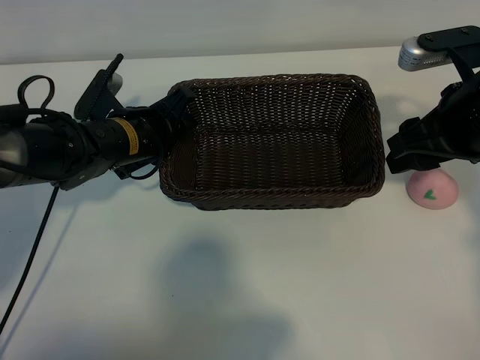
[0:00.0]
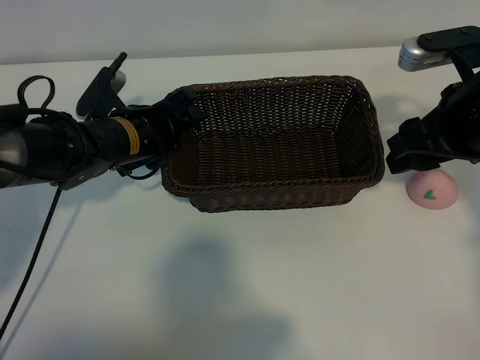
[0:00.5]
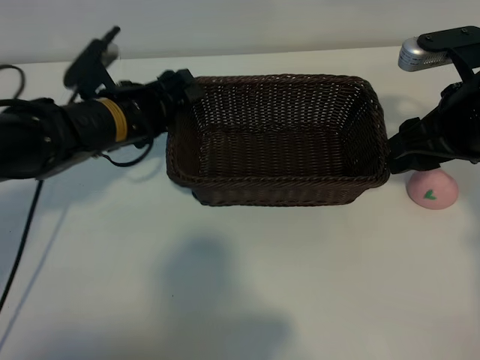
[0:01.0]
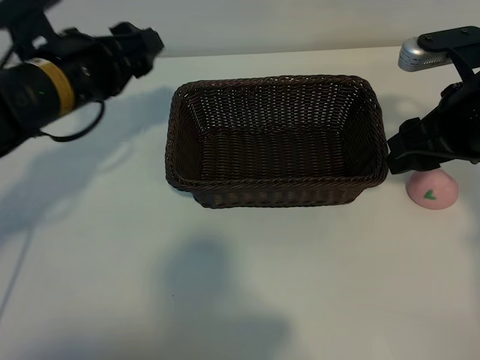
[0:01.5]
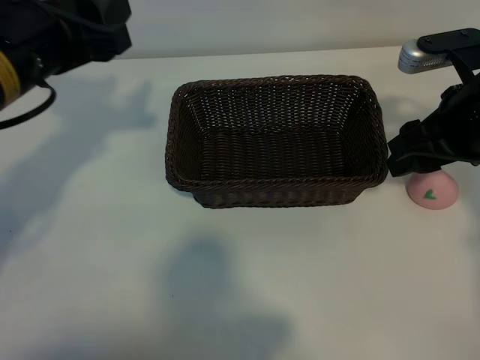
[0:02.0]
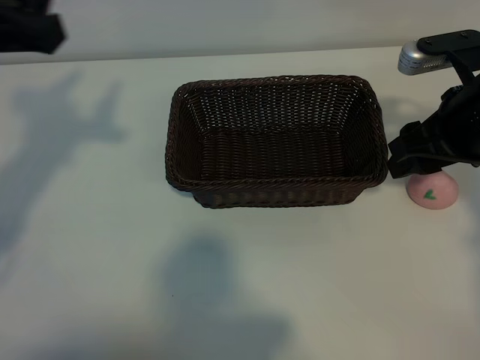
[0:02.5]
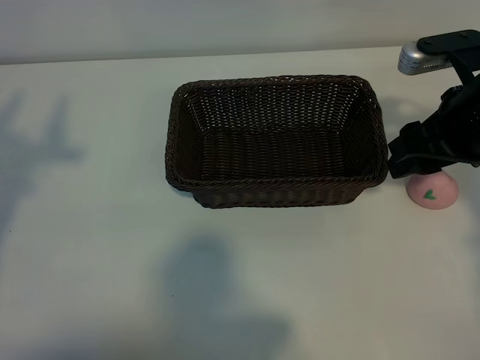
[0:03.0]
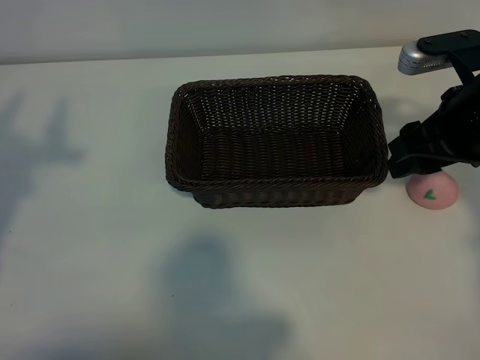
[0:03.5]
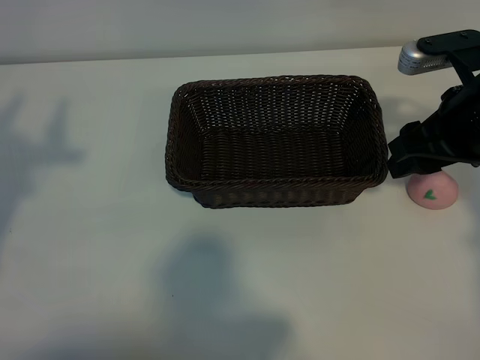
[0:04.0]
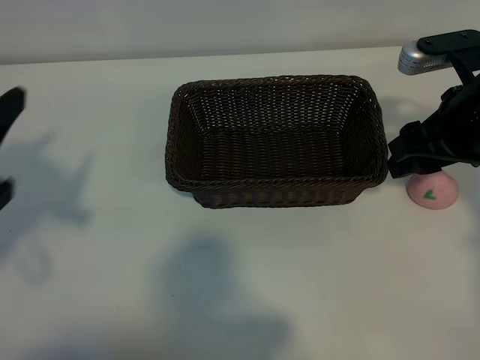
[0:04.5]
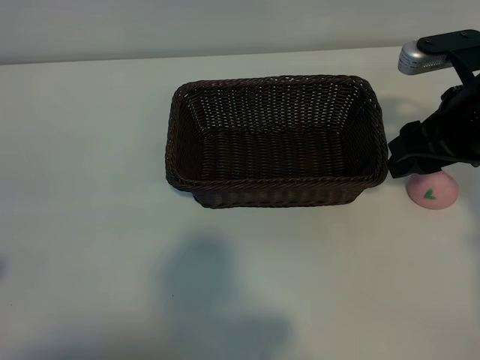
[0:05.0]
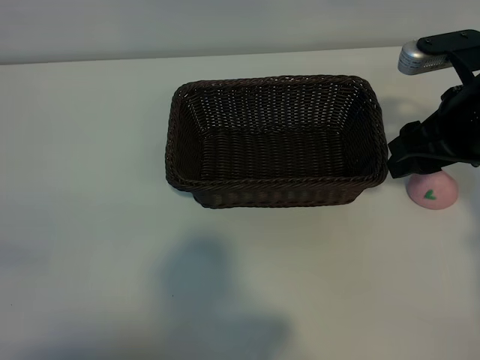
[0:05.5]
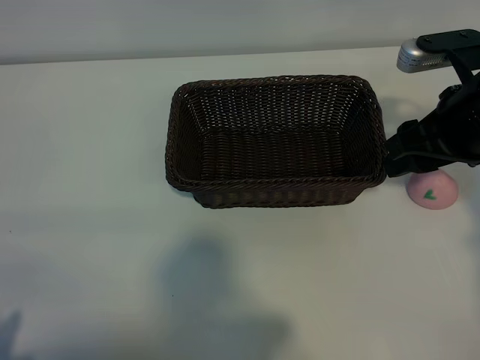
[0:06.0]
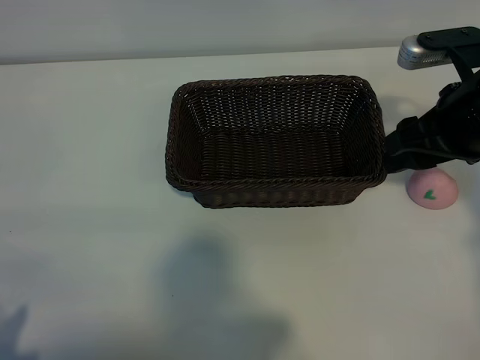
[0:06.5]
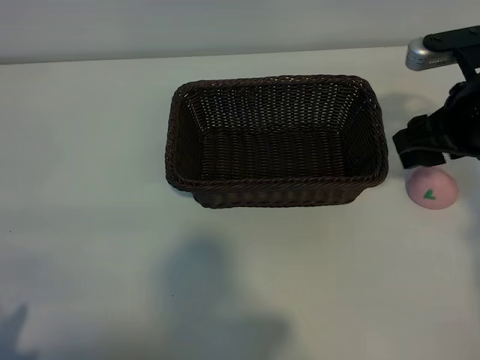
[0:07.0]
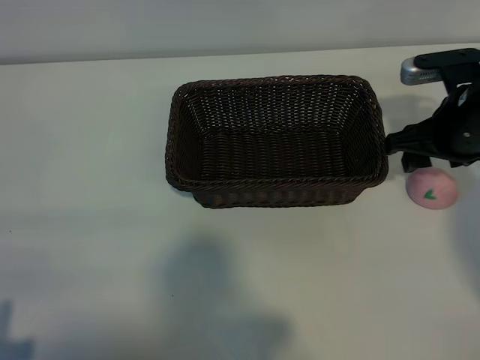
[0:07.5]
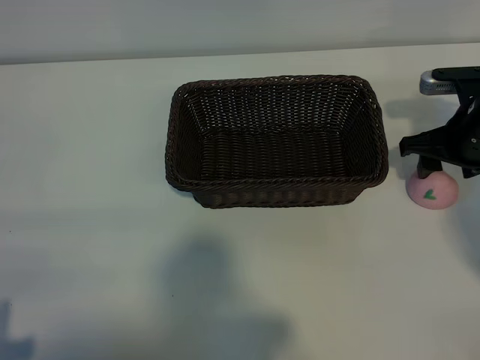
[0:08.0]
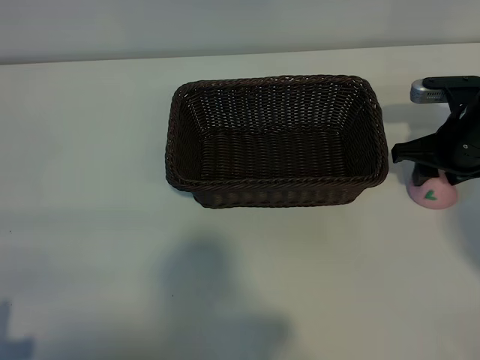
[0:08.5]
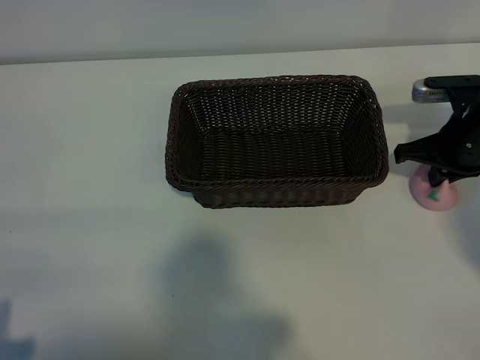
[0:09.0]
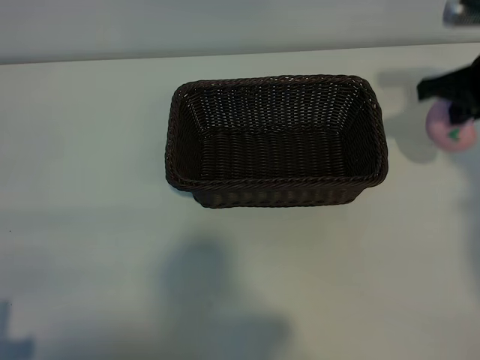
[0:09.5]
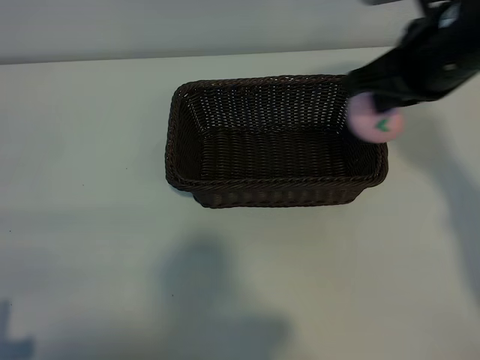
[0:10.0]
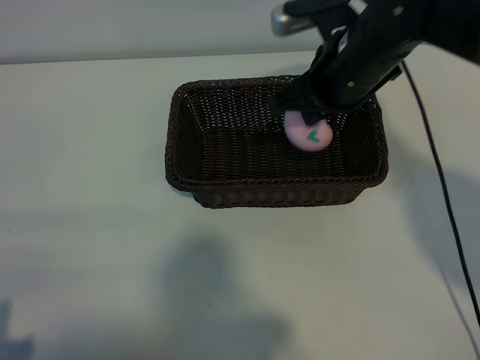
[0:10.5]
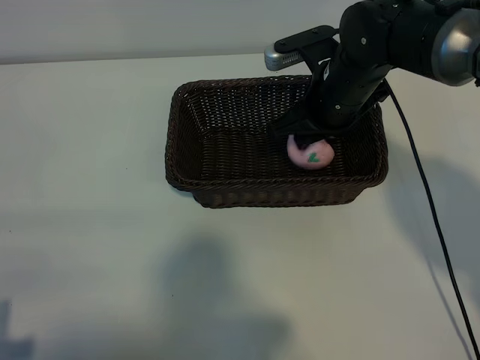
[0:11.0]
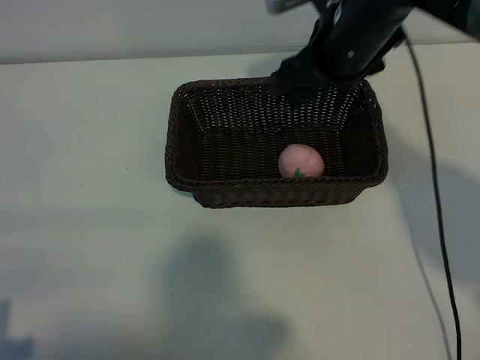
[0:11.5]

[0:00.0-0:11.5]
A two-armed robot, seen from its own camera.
Task of the whole recording: pick up the peach and put it into the basket.
Step, 0:01.5 to 0:09.0: Grasp the peach with right gripper.
Step, 0:09.5 to 0:11.0: Place the peach in the basket with right gripper.

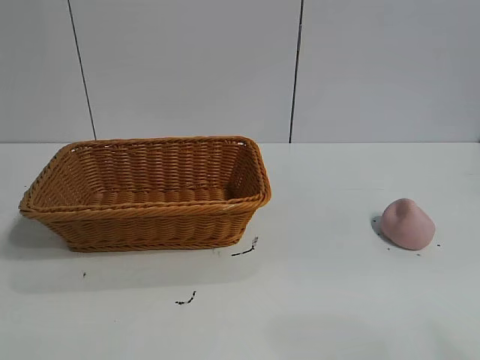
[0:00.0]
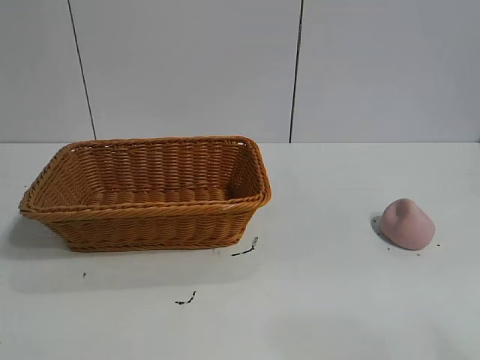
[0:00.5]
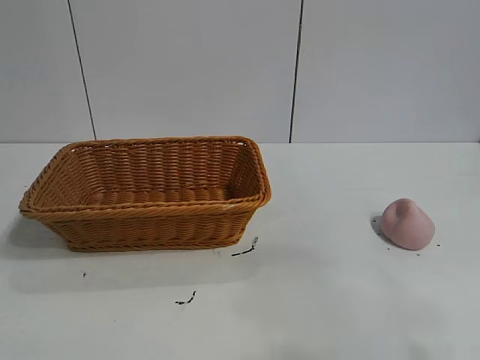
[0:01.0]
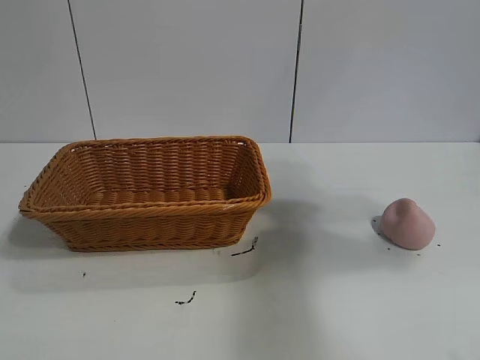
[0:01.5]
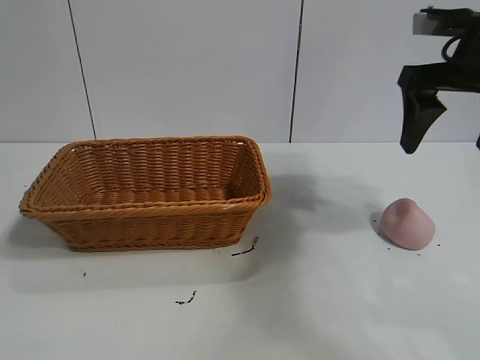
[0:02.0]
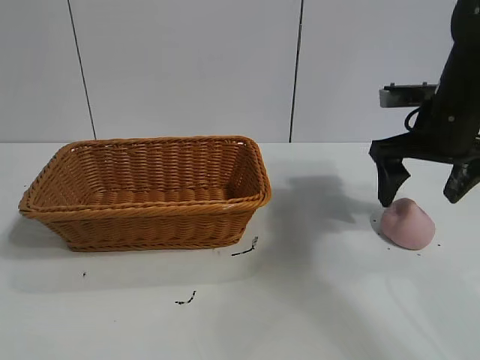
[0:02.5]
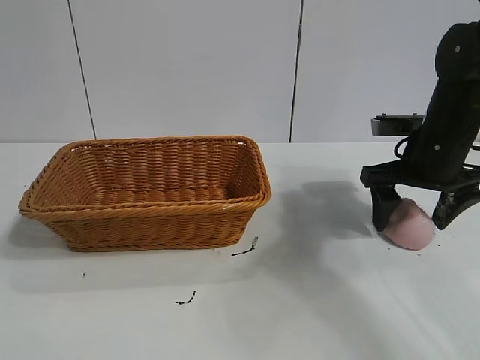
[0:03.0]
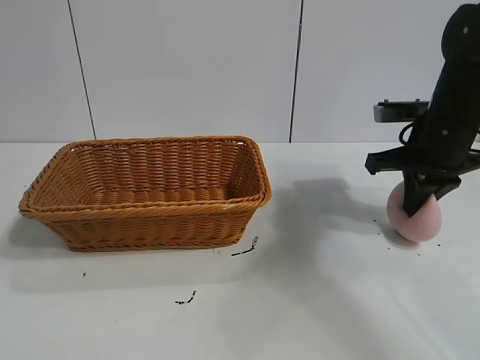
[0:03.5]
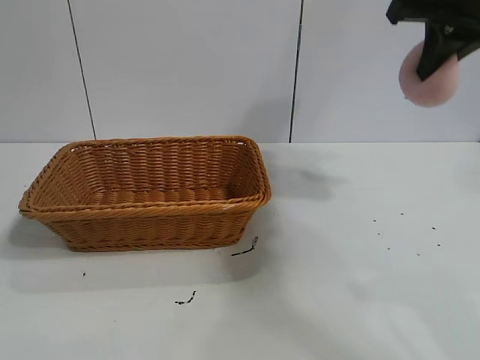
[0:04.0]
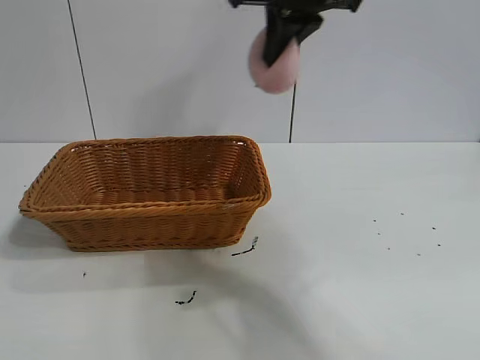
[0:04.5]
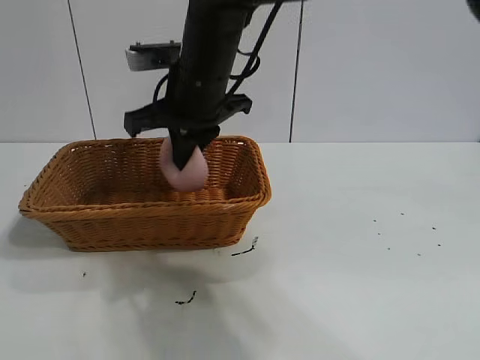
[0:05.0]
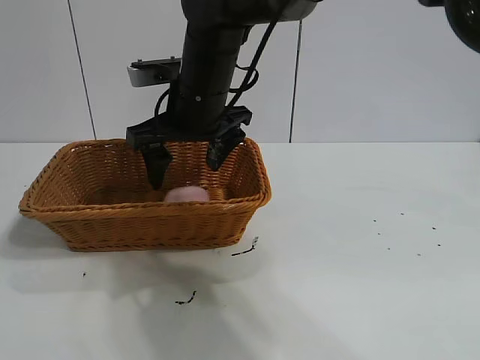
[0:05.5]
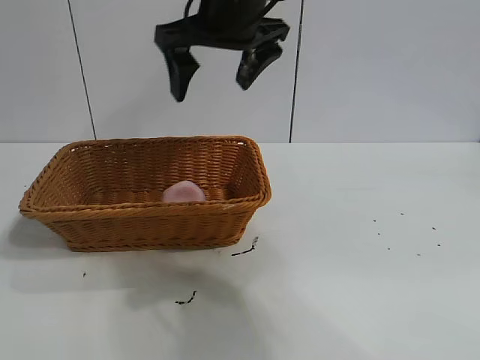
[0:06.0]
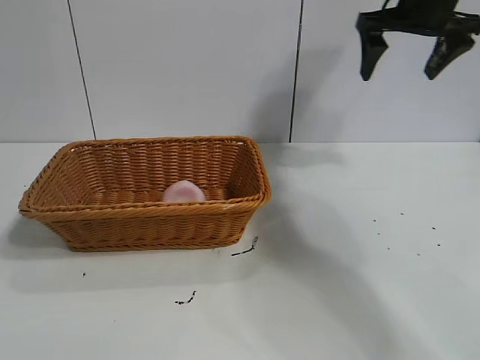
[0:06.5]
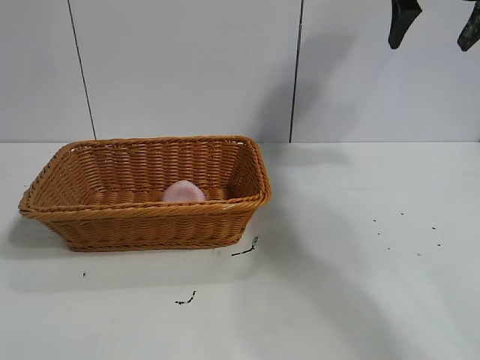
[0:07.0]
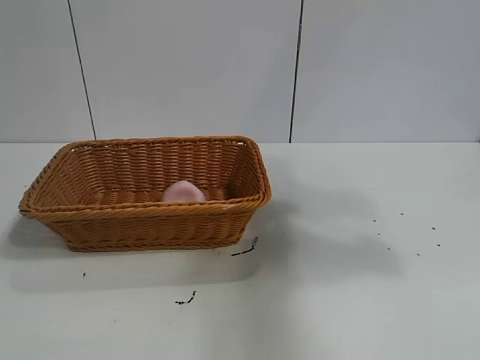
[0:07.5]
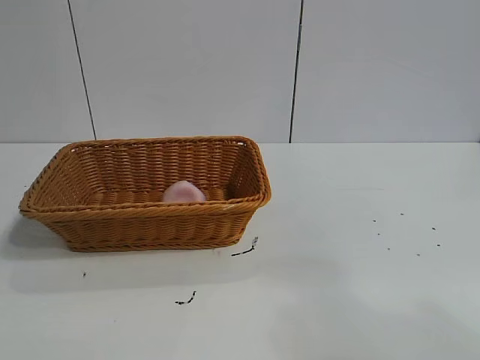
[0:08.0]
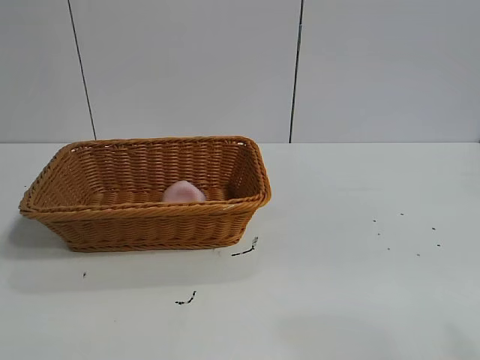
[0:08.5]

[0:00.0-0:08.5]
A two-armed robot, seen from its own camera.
Task of the whole recording: pick up the peach and put it into the basket.
Step, 0:01.0 to 0:03.0: Grasp the peach with right gripper.
Step, 0:04.0 to 0:05.5: Place the peach in the basket with right gripper.

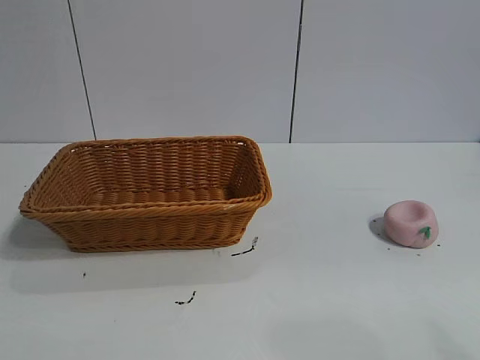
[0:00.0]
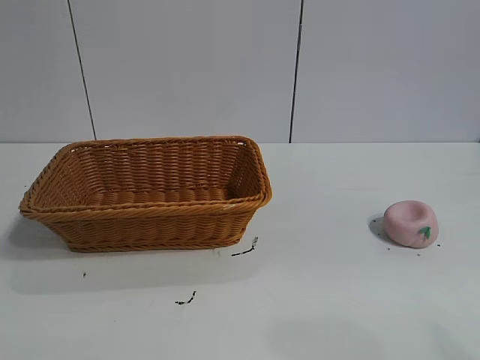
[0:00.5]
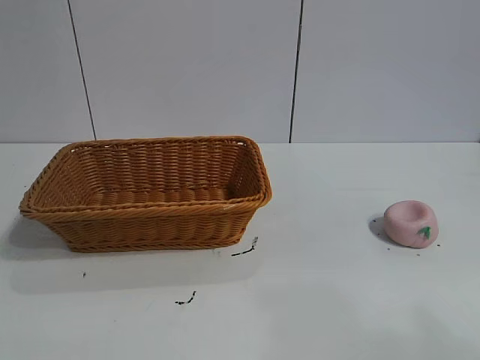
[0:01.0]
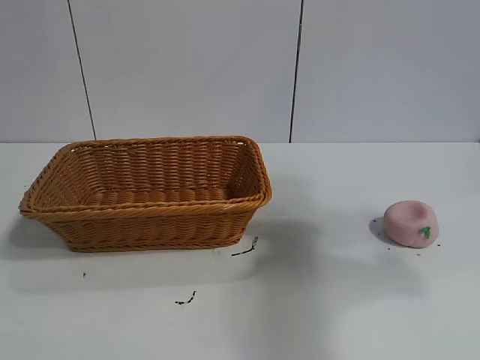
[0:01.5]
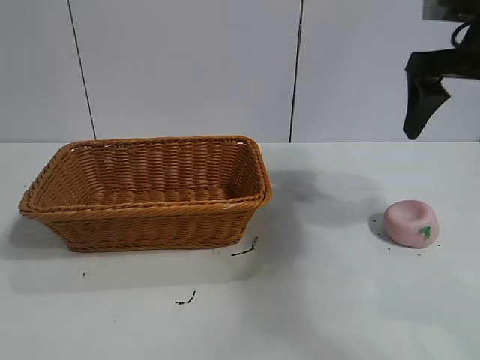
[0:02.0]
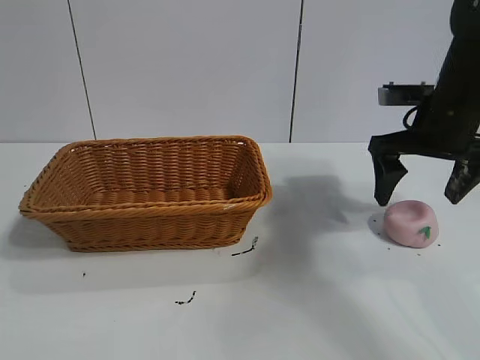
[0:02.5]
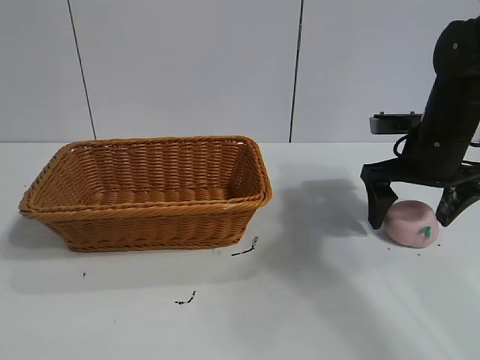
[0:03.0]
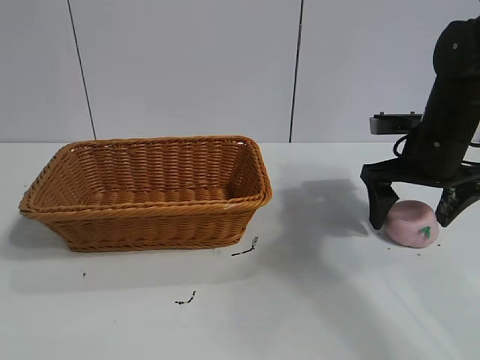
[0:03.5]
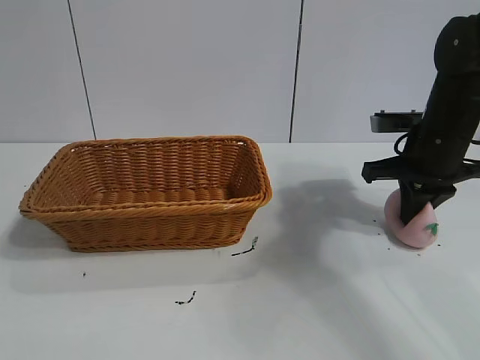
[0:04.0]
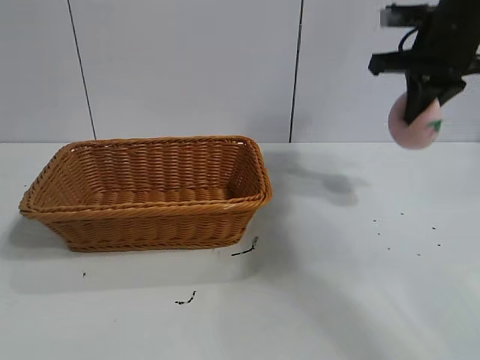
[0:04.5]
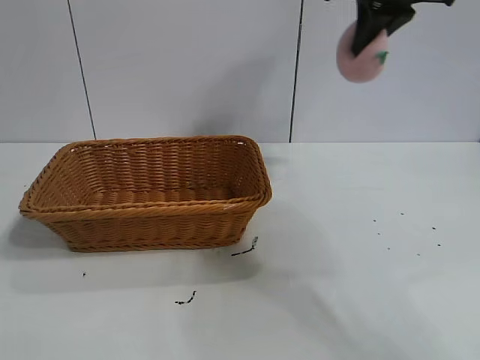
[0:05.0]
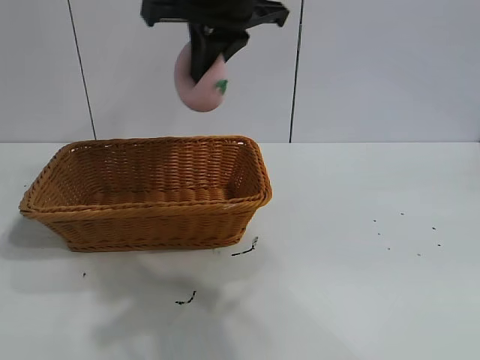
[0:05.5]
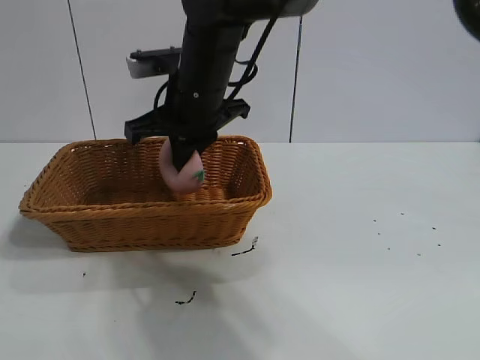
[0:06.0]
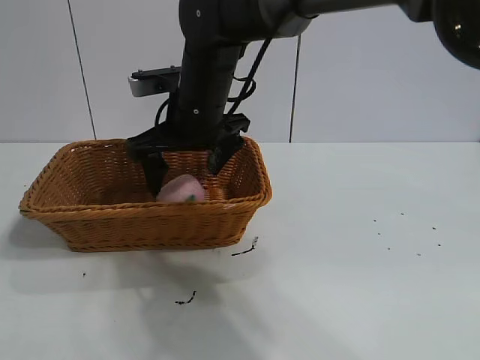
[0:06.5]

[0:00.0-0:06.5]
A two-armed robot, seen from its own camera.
Task of the whole recording: pick up the peach and put it into the basket.
Step, 0:01.0 to 0:04.0: Grasp the peach with right gripper.
Step, 0:04.5 to 0:06.0: Place the peach in the basket with right gripper.
